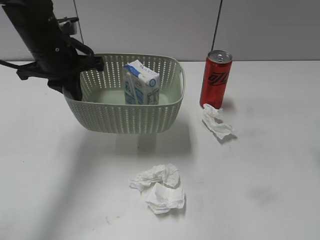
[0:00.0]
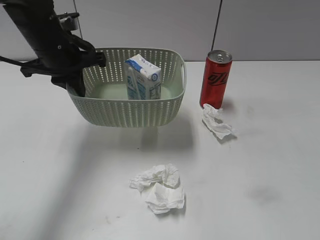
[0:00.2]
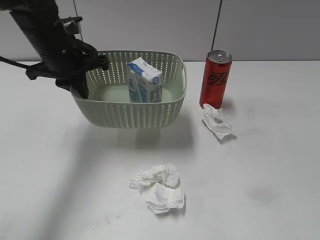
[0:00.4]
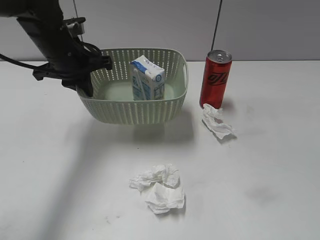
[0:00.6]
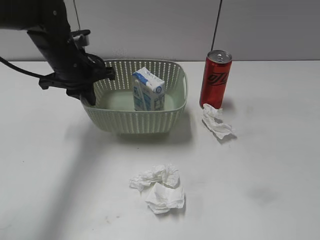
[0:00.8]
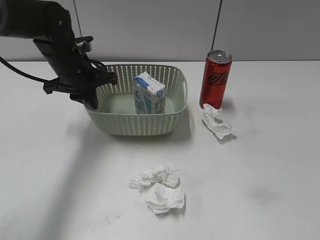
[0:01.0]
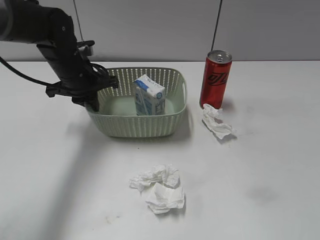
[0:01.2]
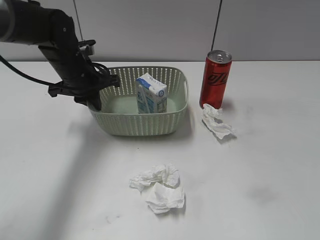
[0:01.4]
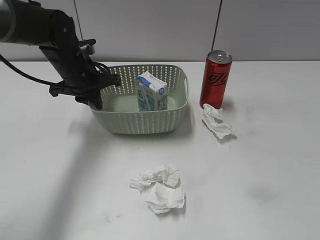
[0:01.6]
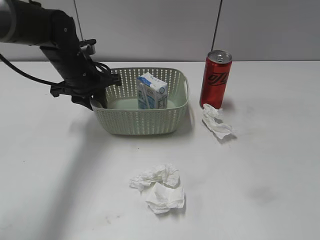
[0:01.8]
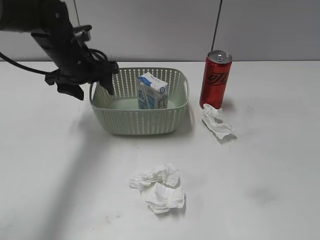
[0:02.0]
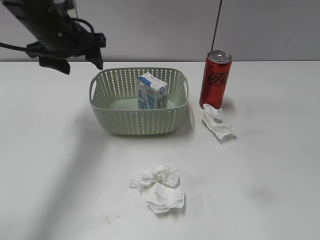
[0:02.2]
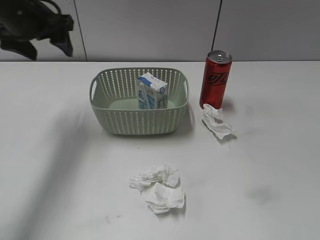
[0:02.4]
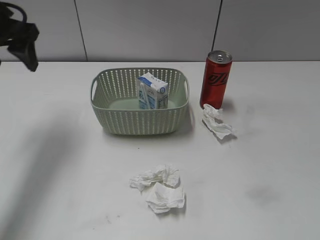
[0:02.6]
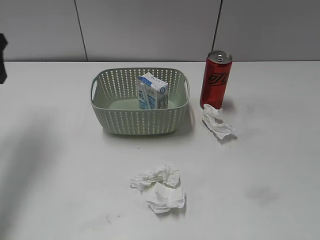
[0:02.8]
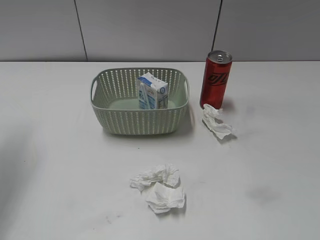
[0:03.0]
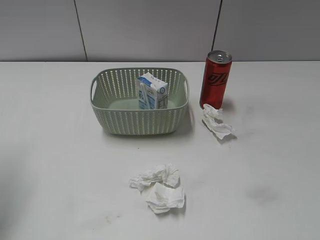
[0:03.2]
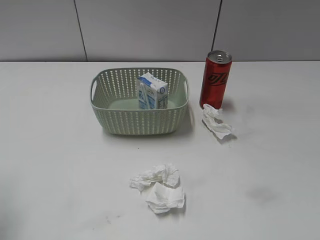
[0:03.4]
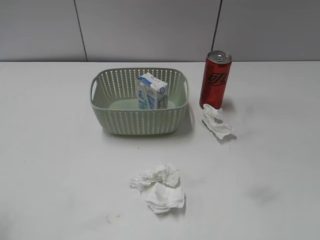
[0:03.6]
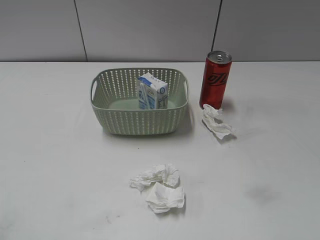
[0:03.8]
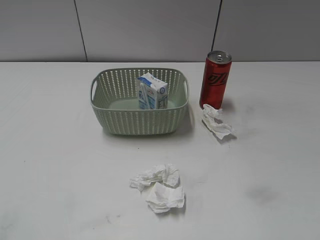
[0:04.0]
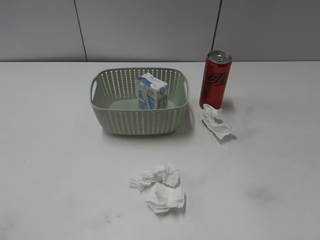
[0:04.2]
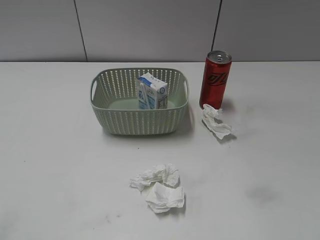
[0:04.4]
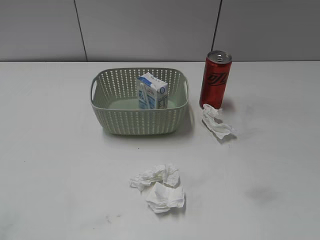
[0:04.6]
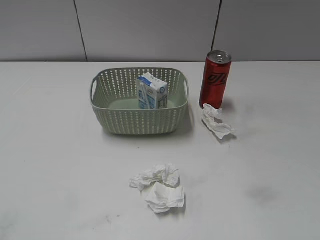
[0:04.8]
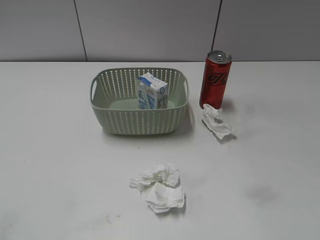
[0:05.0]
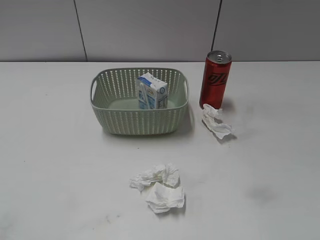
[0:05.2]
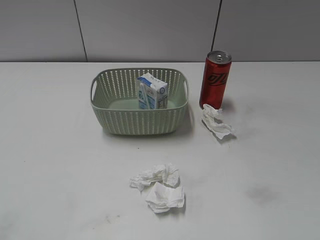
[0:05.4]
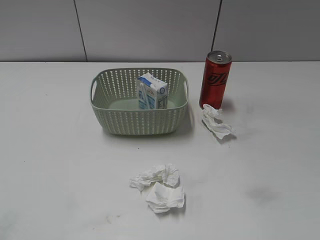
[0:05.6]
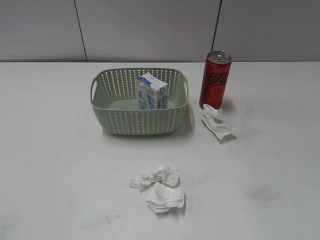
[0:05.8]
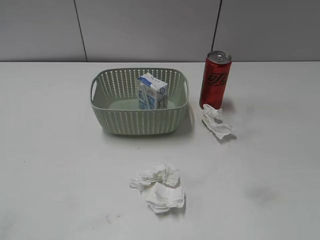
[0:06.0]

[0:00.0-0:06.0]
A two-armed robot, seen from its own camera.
Step, 0:00.0 to 0:02.0: Place the basket on the table with left gripper.
0:00.0 to 0:01.6: The right gripper travels backward by about 25 cm; the left gripper moves downward, roughly 5 cm.
0:01.6 to 0:03.0: The left gripper moves to the left, upward and backward, some 25 cm, and opens up.
0:03.0 to 0:04.4: The left gripper moves backward, some 30 cm.

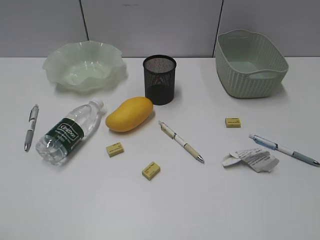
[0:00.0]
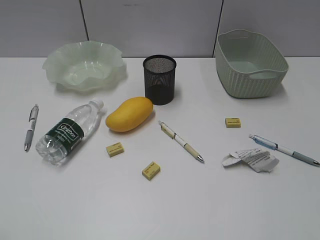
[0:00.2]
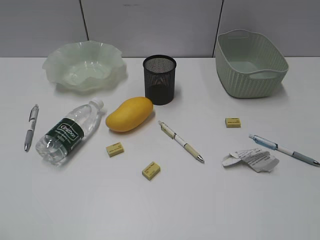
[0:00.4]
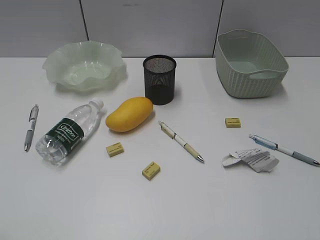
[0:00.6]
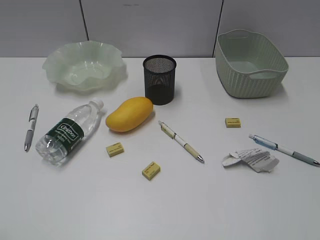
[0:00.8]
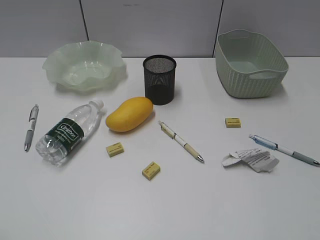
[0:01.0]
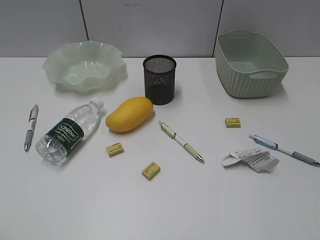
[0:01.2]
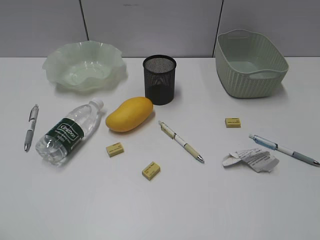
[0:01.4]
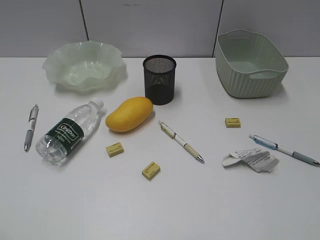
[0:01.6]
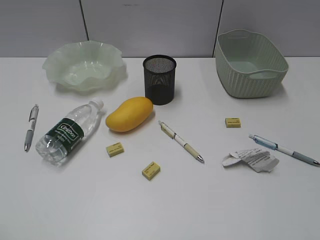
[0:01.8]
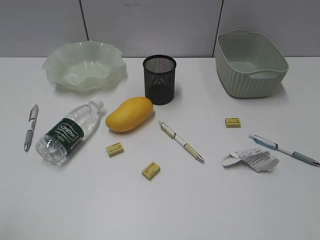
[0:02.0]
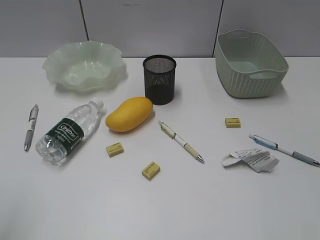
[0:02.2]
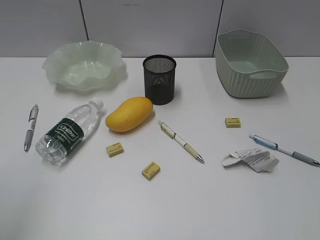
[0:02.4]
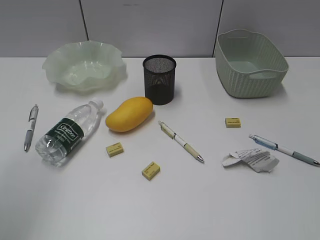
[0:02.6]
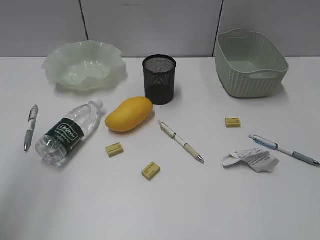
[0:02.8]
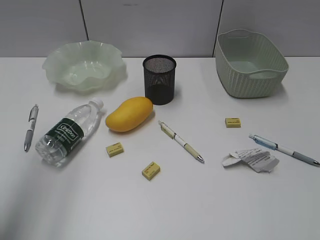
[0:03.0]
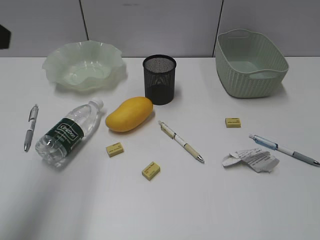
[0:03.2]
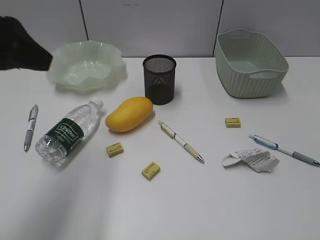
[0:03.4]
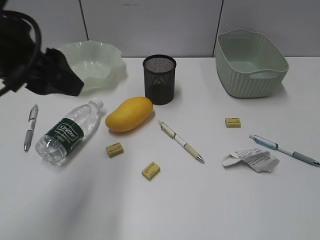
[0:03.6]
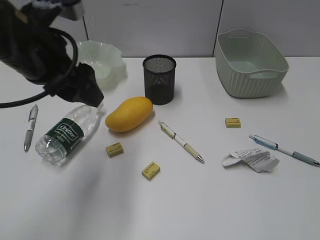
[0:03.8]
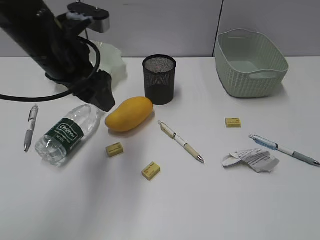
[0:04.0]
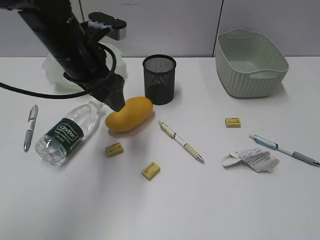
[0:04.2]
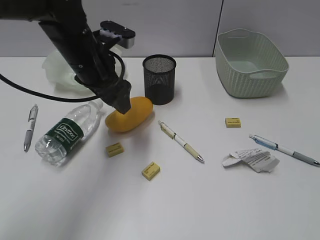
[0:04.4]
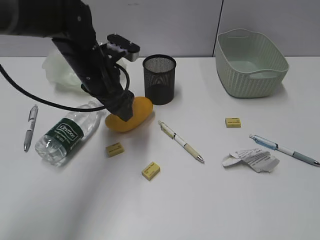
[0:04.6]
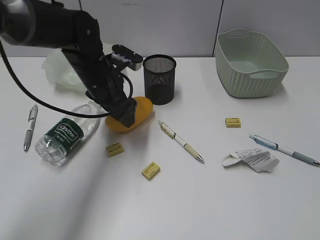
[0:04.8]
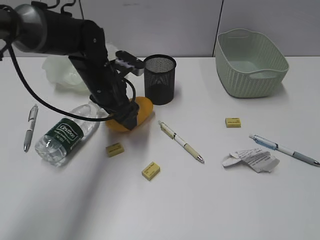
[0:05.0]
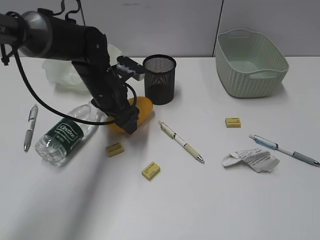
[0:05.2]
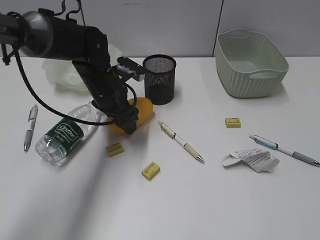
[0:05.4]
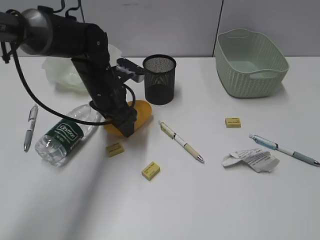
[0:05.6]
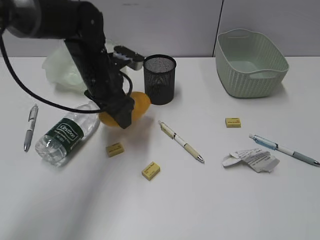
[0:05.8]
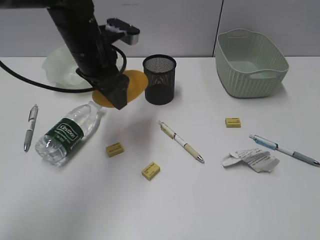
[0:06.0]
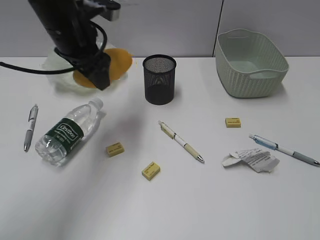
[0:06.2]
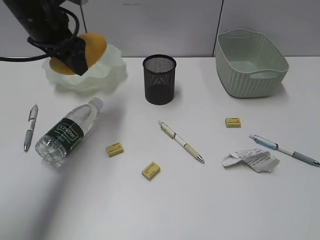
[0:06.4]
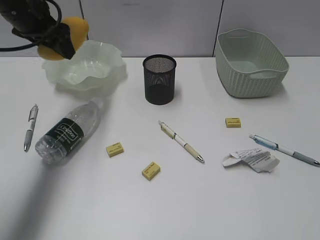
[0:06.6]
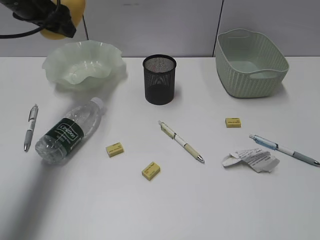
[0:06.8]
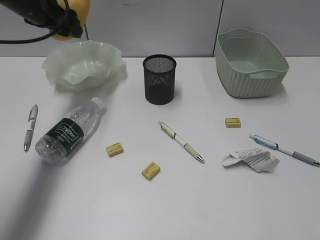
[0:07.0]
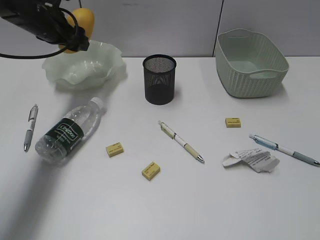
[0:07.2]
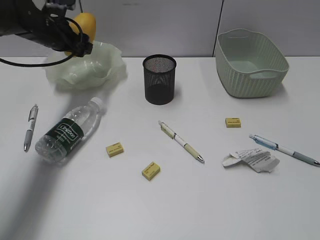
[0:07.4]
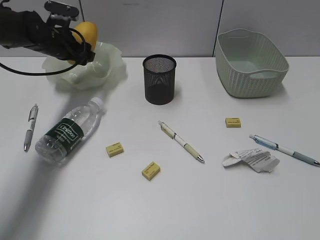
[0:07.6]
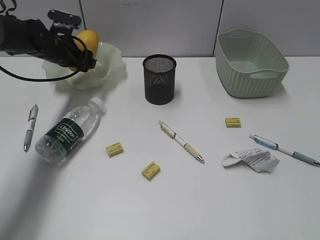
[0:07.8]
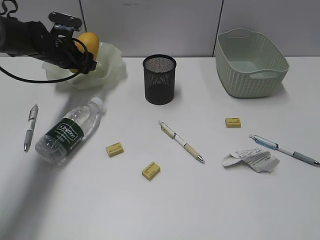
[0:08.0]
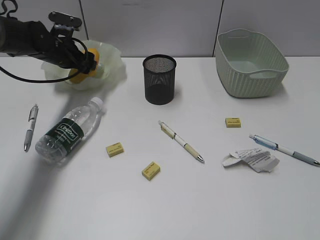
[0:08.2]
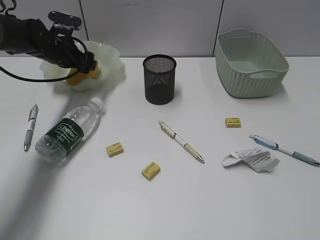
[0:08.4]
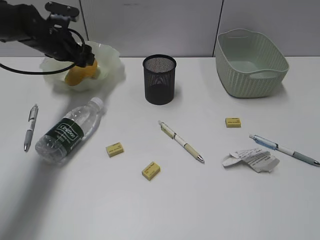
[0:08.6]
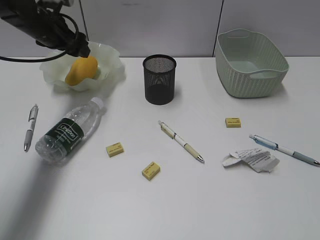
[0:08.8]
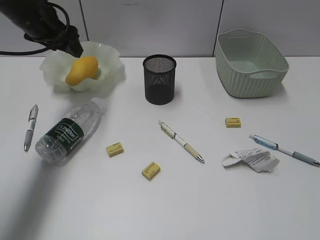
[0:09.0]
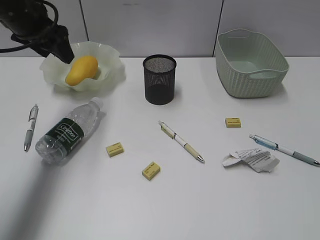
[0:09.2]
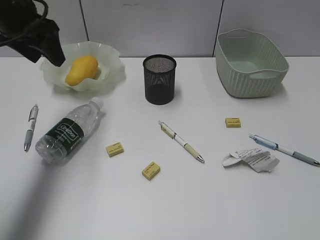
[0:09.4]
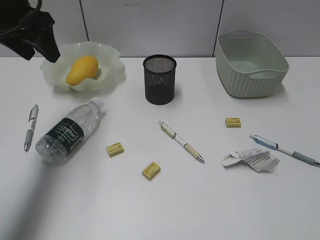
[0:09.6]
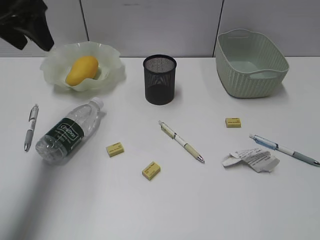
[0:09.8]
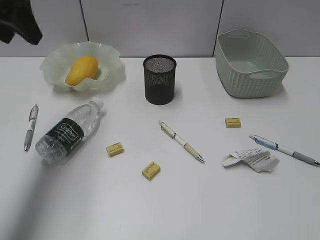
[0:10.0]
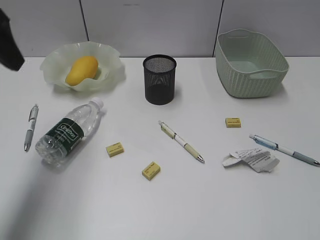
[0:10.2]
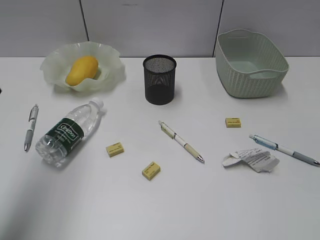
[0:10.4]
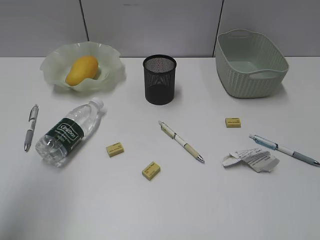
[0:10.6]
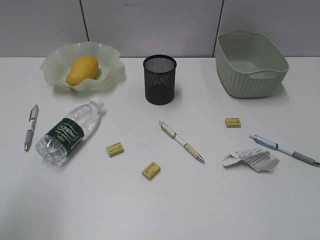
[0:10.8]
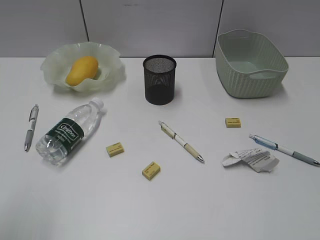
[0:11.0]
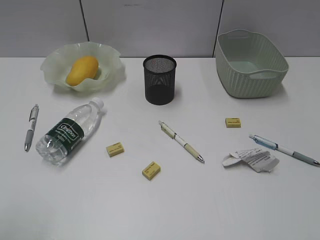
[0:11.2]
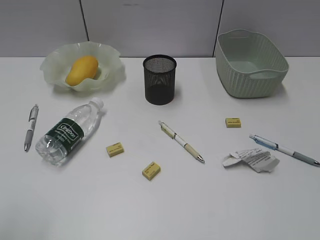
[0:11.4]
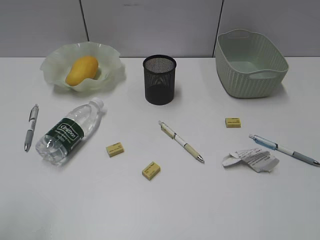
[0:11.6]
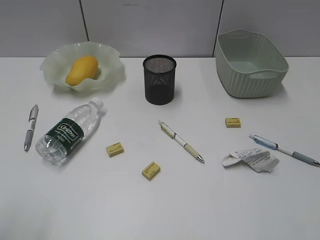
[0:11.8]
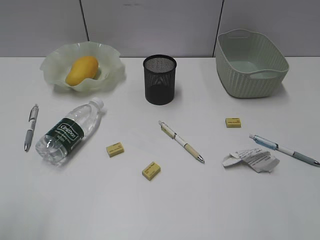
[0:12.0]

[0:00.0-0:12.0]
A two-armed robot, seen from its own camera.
Step, 0:03.2 to 0:05.4: Grasp the mango with left gripper.
Step, 0:05.6 to 0:08.8: Place the mango in the plate with left gripper.
0:01.6 to 0:03.0: The left gripper shifts approximately 20 cm forward and upward.
0:03.0 to 0:04.4: The left gripper moves forward, to the right and downward, about 30 cm.
0:04.4 to 0:06.0: The left gripper travels downward and back again, approximately 10 cm each way.
0:06.0 to 0:07.6: The left gripper heads forward, to the left and downward, covering roughly 20 cm.
0:07.6 to 0:09.0: The left gripper shifts roughly 10 cm upward and backward.
0:09.0 to 0:10.4: The left gripper shifts about 20 cm backward.
0:10.4 to 0:12.0: The left gripper moves backward, roughly 15 cm.

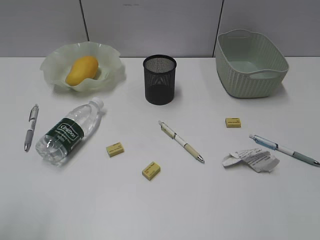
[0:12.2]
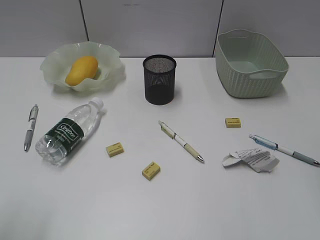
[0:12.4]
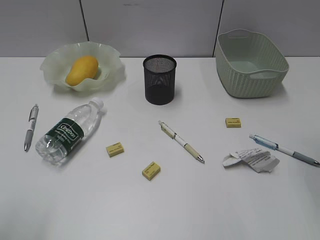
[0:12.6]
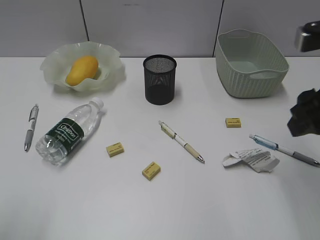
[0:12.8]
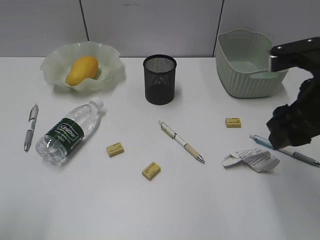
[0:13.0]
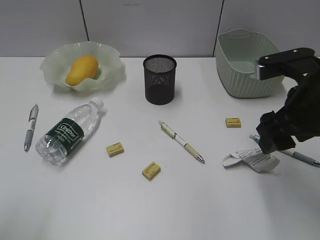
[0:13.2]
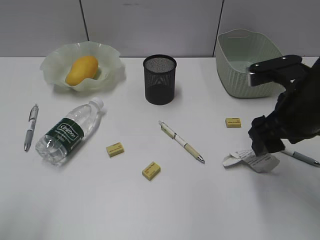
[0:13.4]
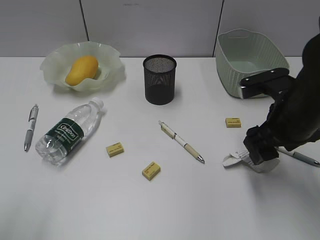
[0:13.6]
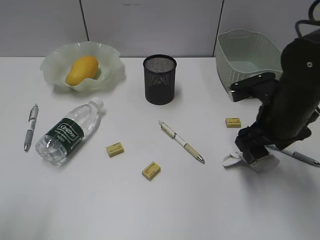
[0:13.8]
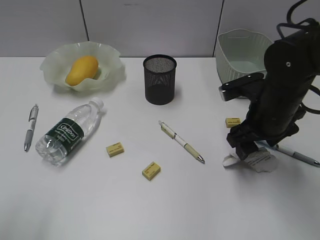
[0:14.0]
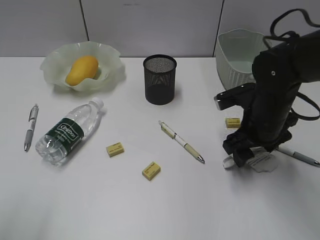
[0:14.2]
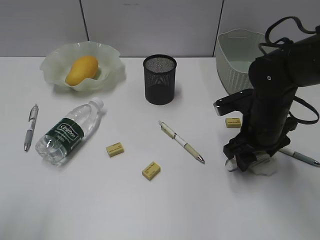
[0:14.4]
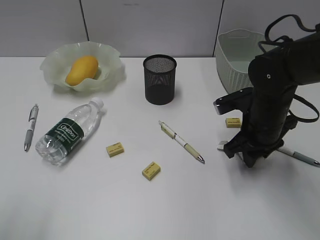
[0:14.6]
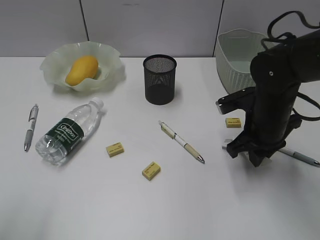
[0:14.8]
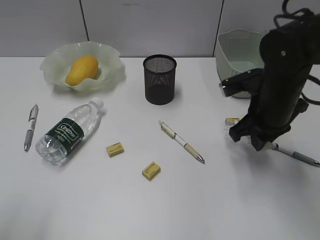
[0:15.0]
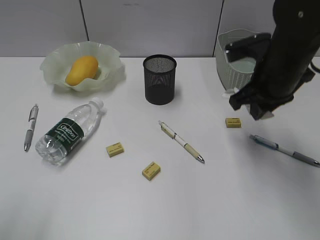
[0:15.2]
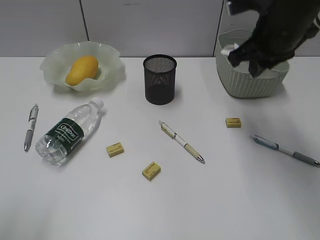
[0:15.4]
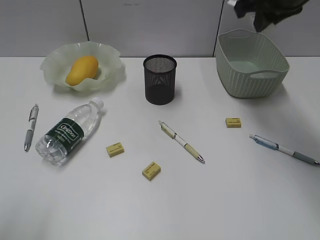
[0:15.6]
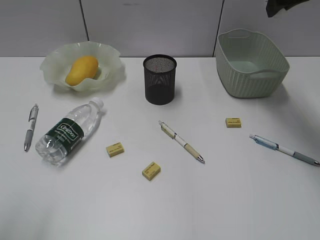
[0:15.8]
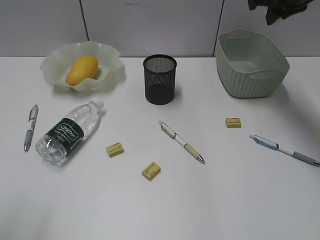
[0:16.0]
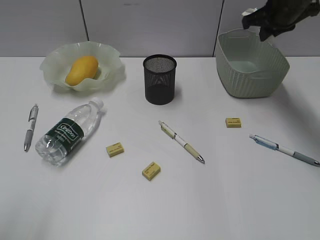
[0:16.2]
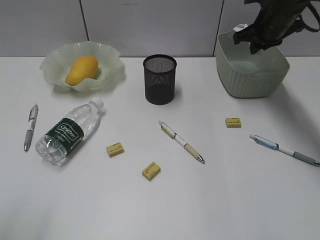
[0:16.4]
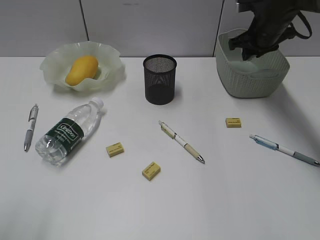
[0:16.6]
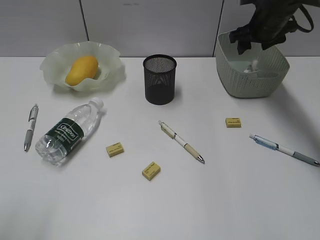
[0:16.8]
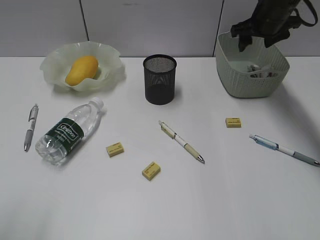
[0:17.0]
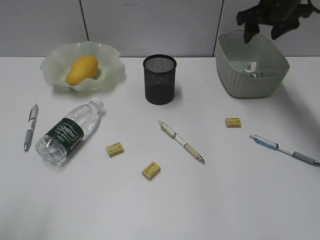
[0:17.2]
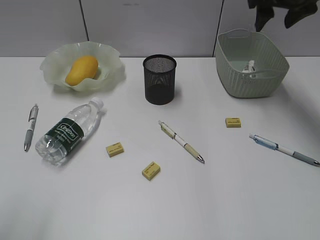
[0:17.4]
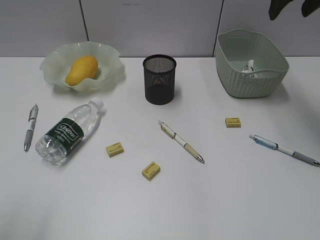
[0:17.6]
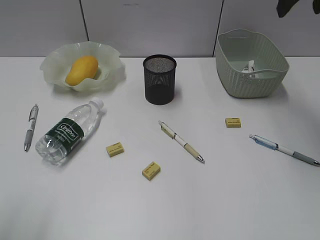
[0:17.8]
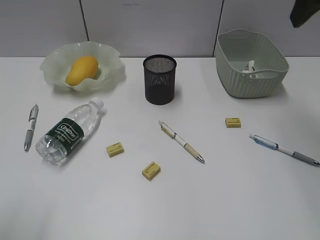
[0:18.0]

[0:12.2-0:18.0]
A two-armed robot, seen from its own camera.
Step, 0:12.2 to 0:14.6: Grasp the waste paper with right gripper.
Step, 0:14.8 to 0:17.0: Place the waste paper in the basket with right gripper.
0:12.2 to 0:13.6: The right gripper moves downward, forward and to the left, roughly 20 cm.
0:13.6 to 0:15.0: The right gripper closes its fingers.
0:15.0 to 0:16.6: The right gripper moves forward, about 20 cm, and opens its fingers.
0:16.6 to 0:18.0: The right gripper shifts some 30 cm backward and upward, and opens up.
